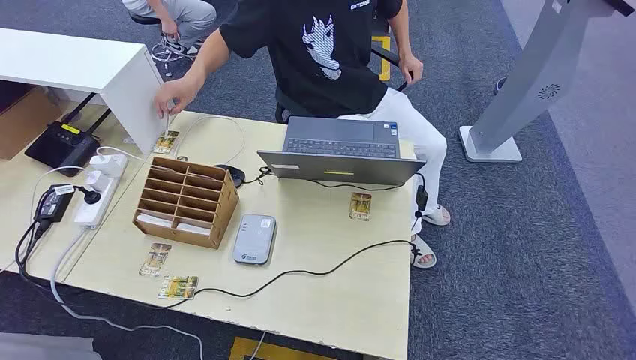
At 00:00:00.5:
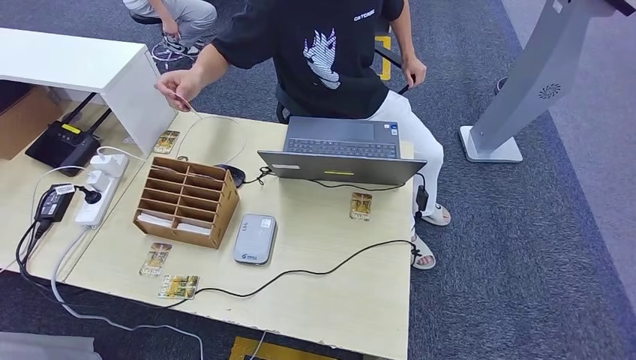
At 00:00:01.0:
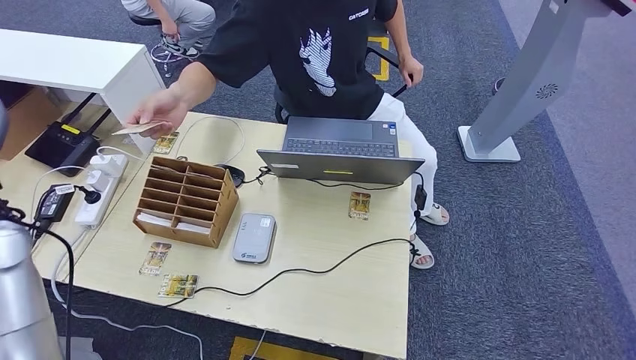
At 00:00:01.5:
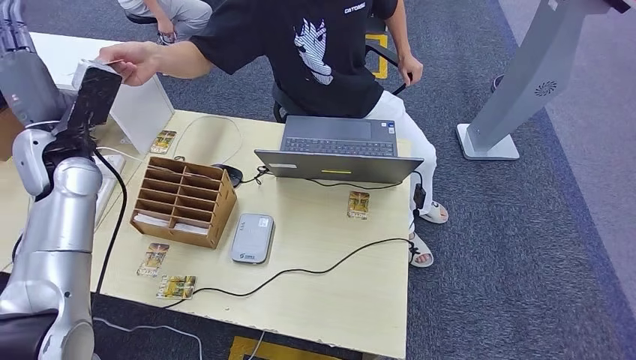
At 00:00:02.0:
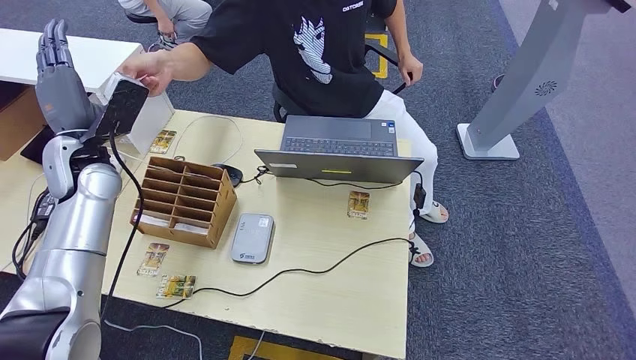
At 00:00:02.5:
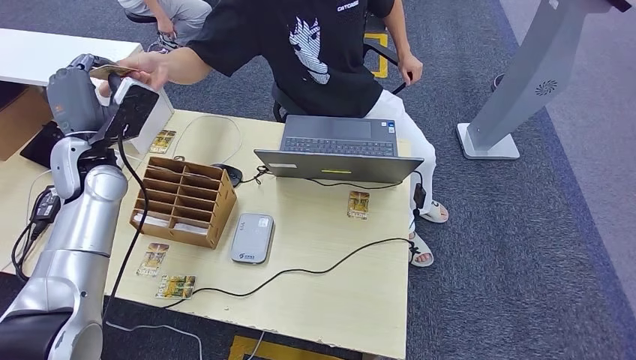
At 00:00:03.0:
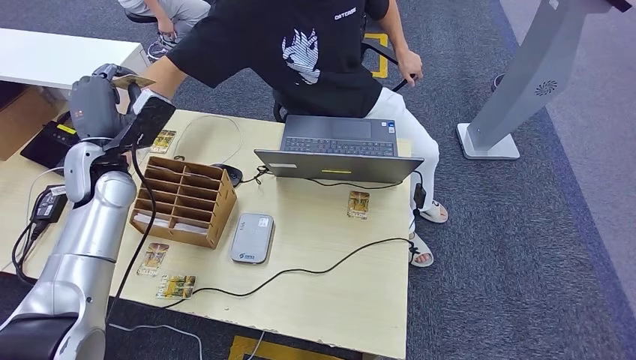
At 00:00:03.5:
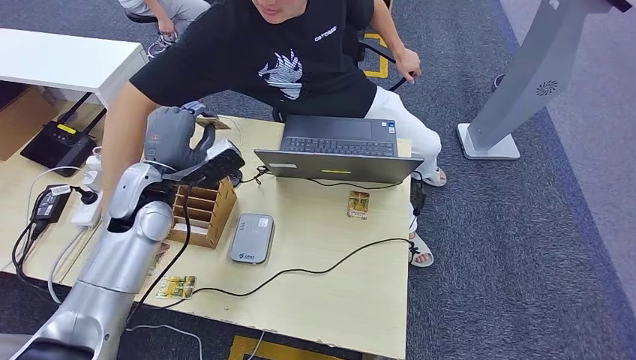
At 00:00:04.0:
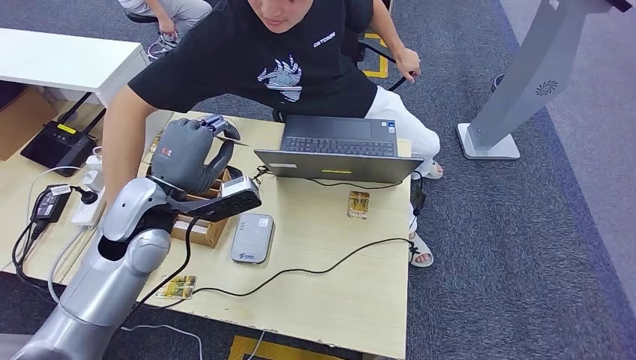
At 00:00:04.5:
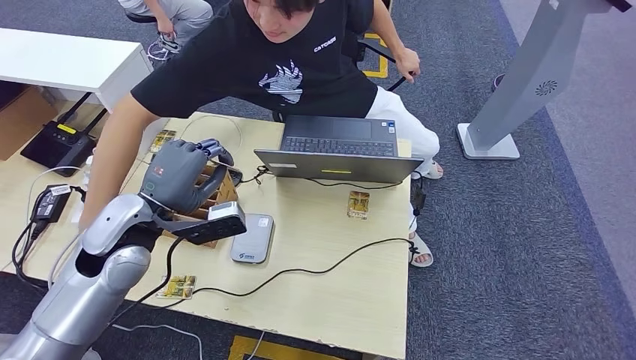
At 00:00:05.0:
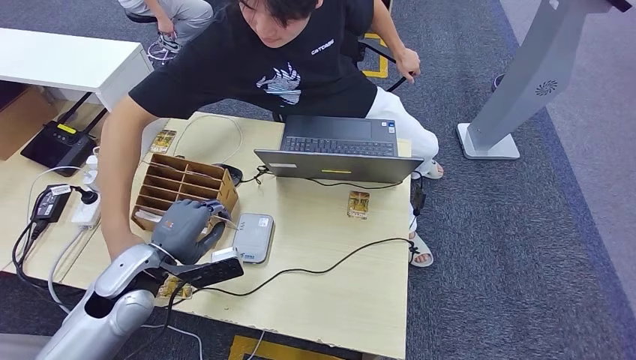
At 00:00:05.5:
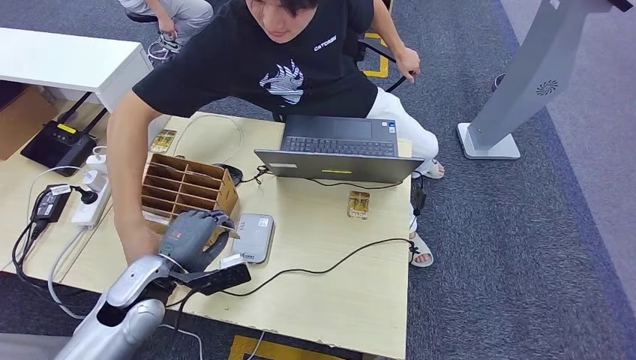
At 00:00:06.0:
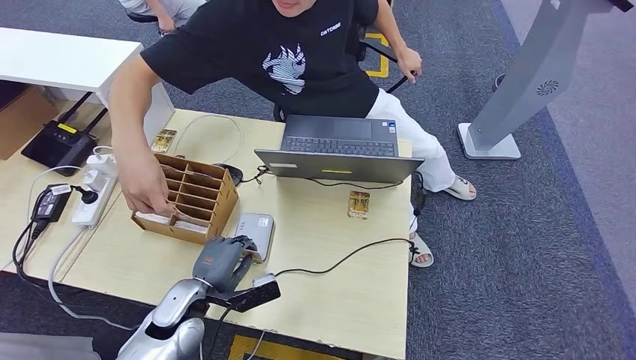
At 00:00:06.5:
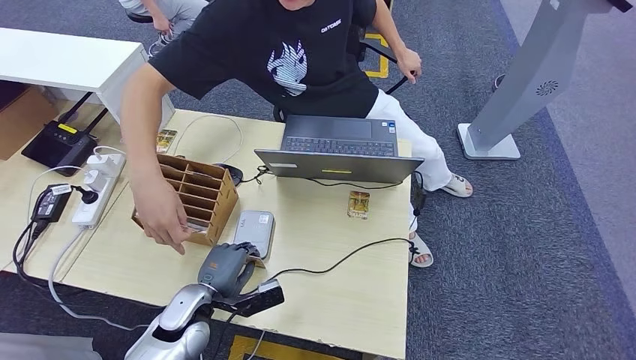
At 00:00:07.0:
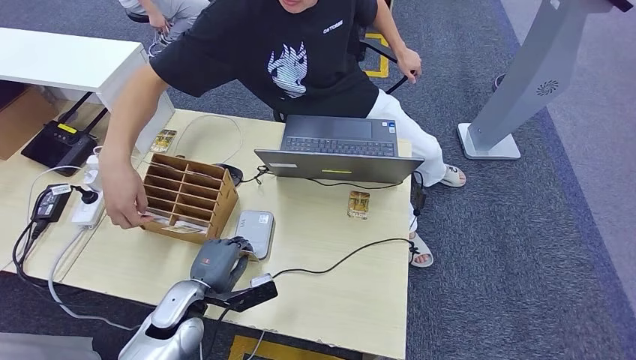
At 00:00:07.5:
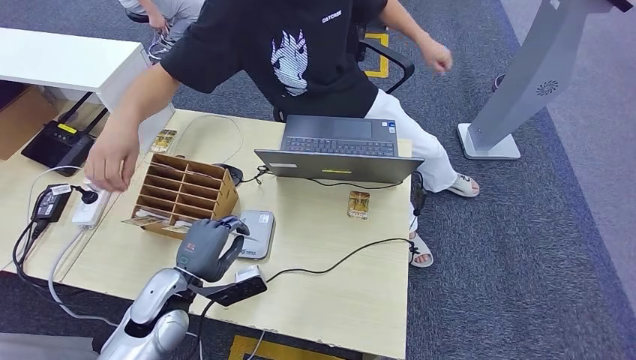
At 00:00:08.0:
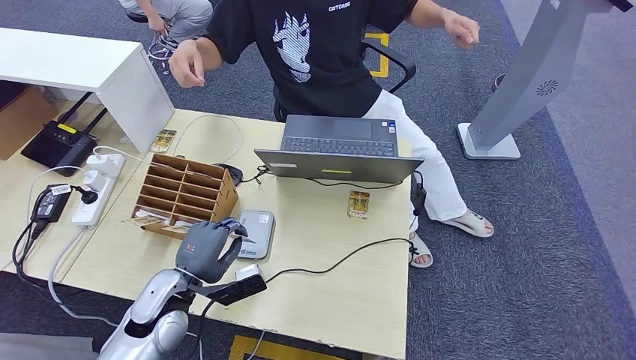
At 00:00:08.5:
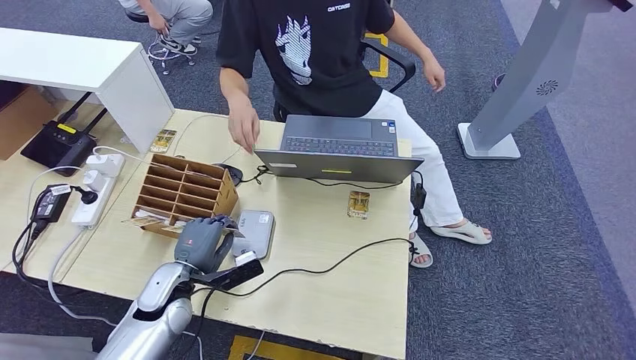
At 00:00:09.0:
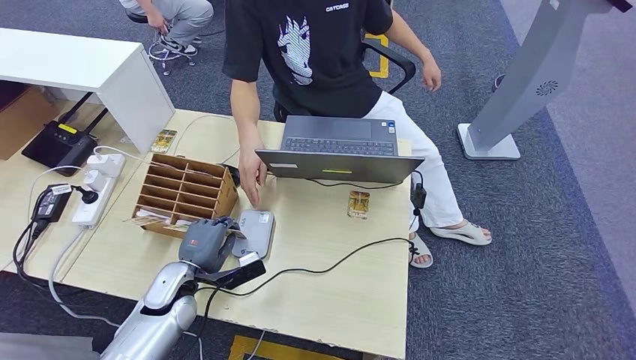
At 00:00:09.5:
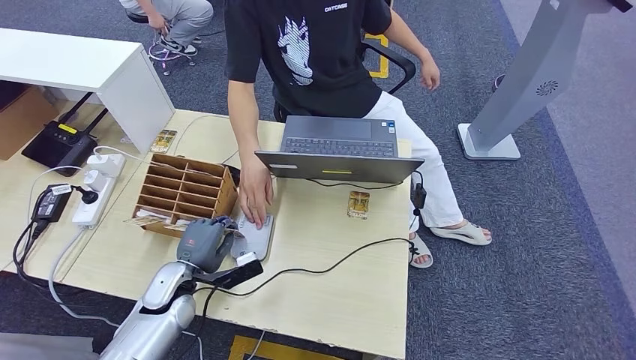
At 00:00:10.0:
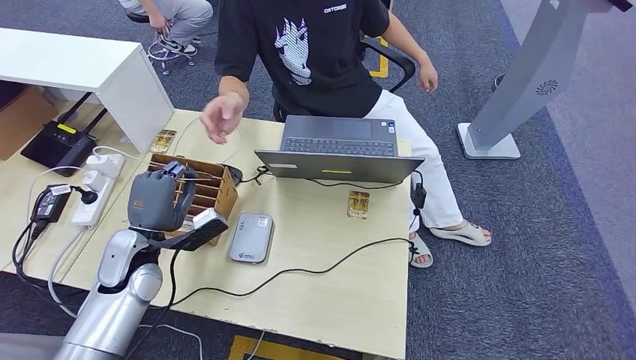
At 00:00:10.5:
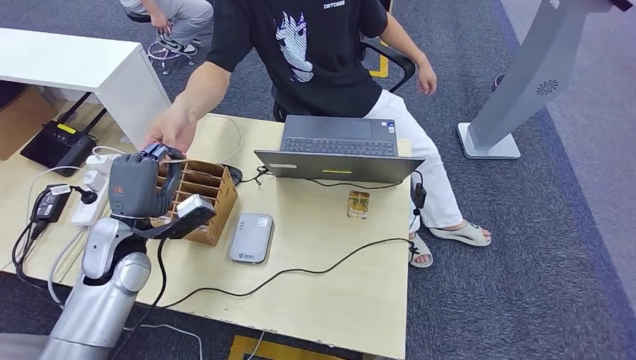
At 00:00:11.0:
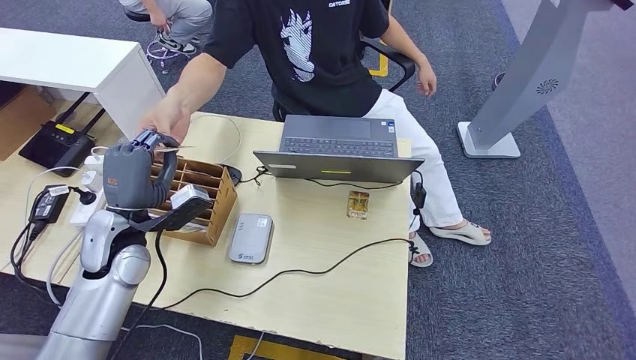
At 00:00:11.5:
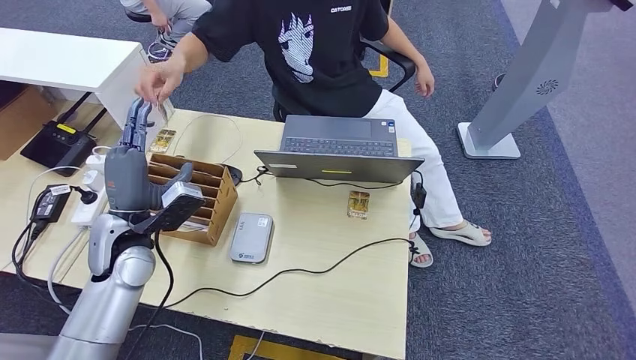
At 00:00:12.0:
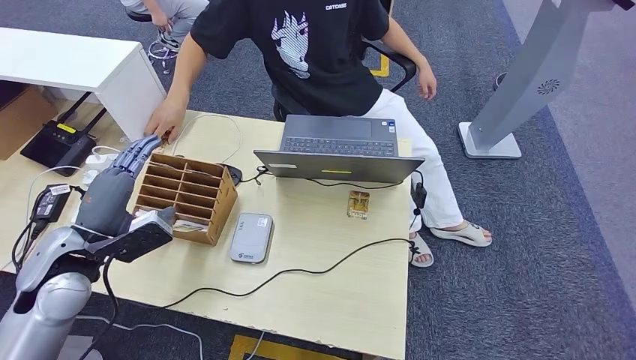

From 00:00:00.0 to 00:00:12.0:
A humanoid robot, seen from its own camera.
Step, from 00:00:00.0 to 00:00:03.0: Take the ID card from the person's hand.
Step, from 00:00:04.0 to 00:00:09.0: Place the ID card on the card reader.
Step, from 00:00:09.5 to 00:00:11.0: Hand the ID card to the person.
From 00:00:04.0 to 00:00:06.0: The left hand shifts roughly 20 cm downward and backward.
From 00:00:06.0 to 00:00:08.0: The hands stay close to where they were, moving slightly.
From 00:00:08.0 to 00:00:10.0: The left hand travels forward and to the left by roughly 10 cm.
From 00:00:10.0 to 00:00:12.0: The left hand heads upward and to the left, covering approximately 10 cm.

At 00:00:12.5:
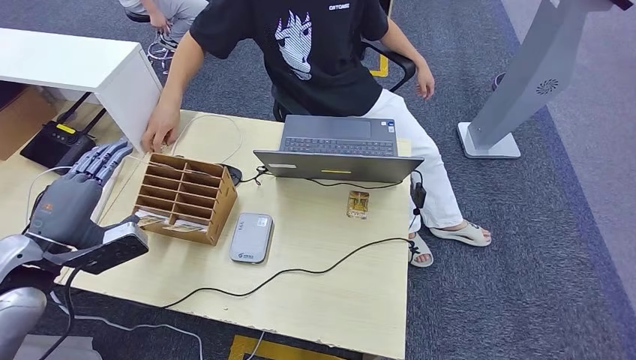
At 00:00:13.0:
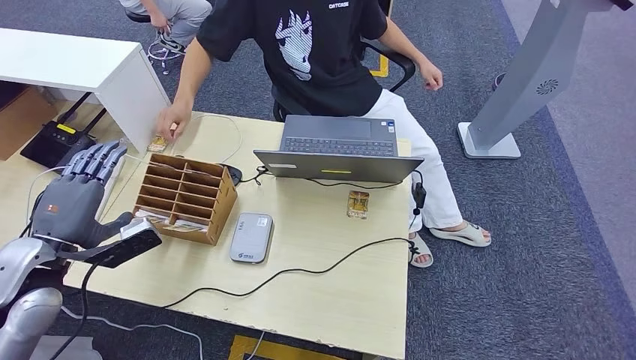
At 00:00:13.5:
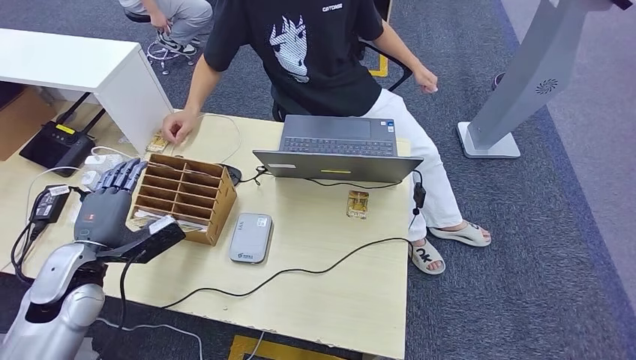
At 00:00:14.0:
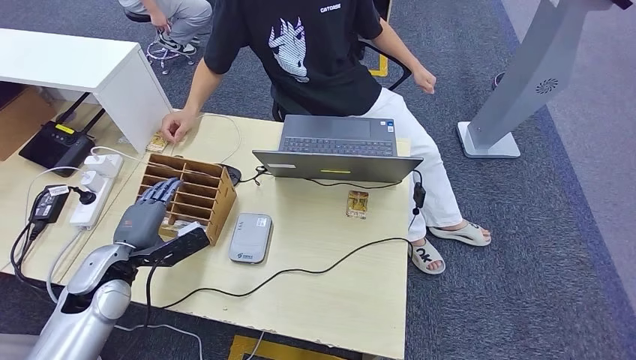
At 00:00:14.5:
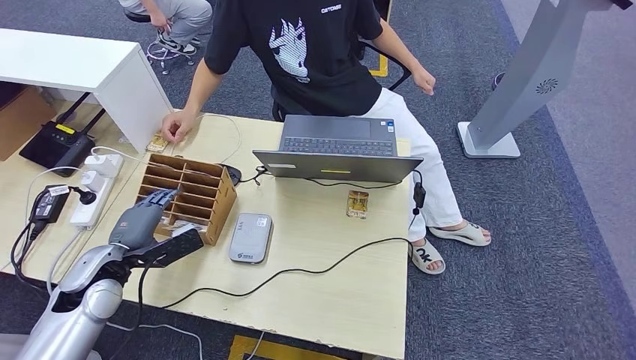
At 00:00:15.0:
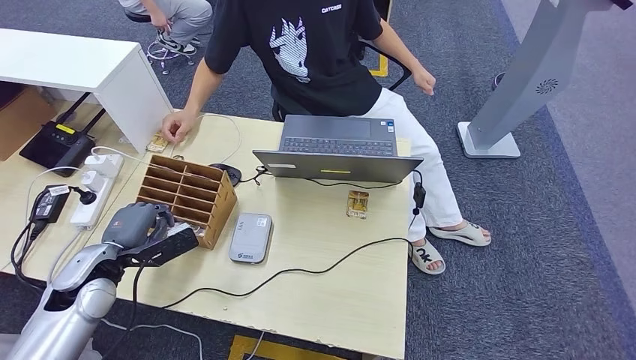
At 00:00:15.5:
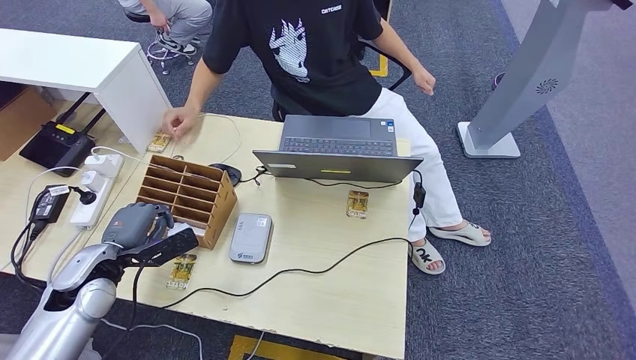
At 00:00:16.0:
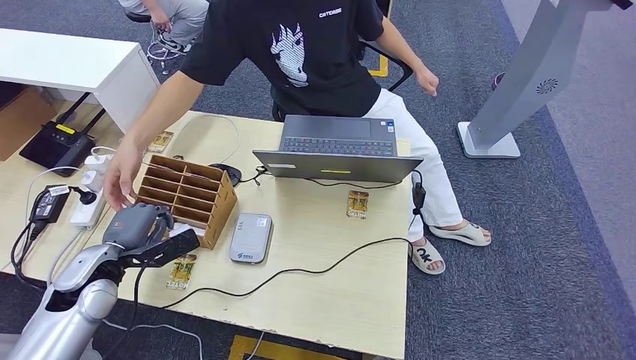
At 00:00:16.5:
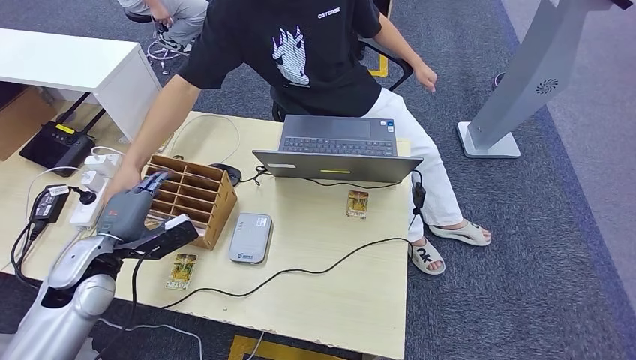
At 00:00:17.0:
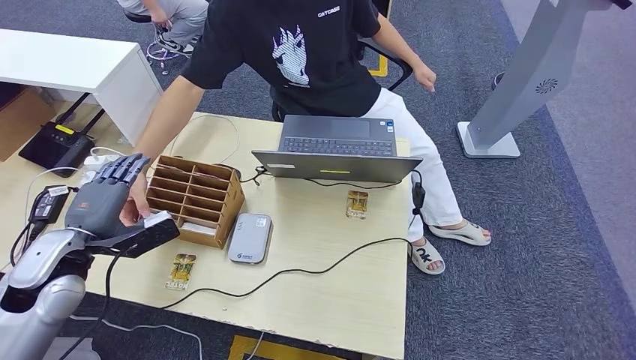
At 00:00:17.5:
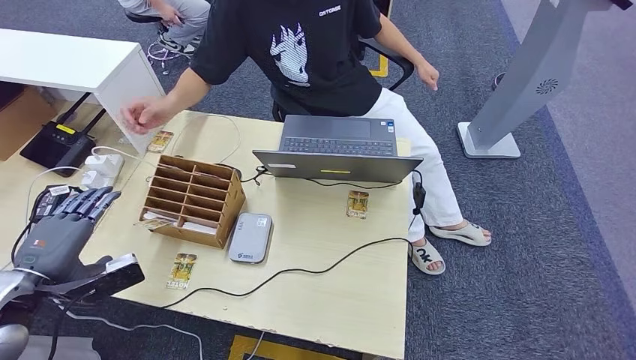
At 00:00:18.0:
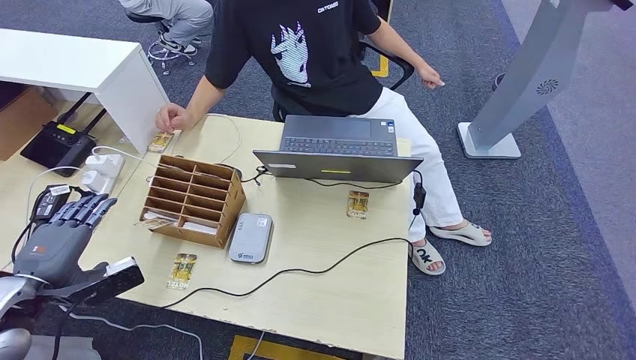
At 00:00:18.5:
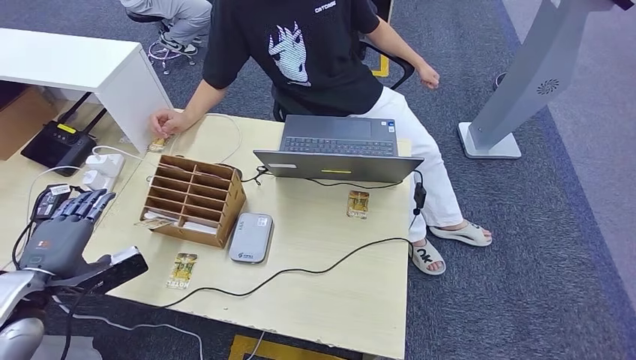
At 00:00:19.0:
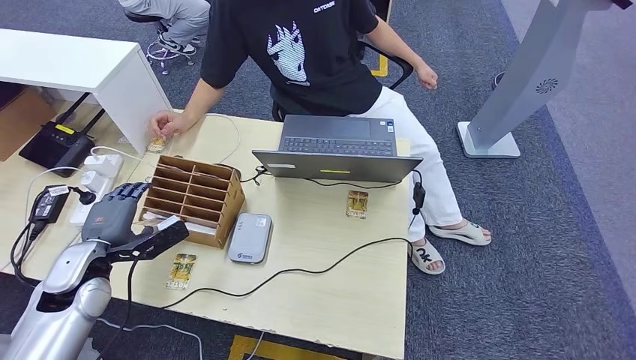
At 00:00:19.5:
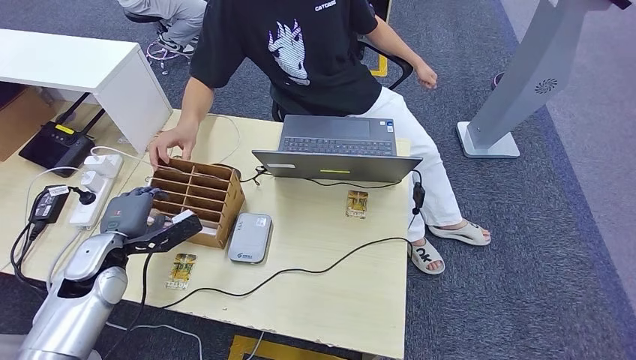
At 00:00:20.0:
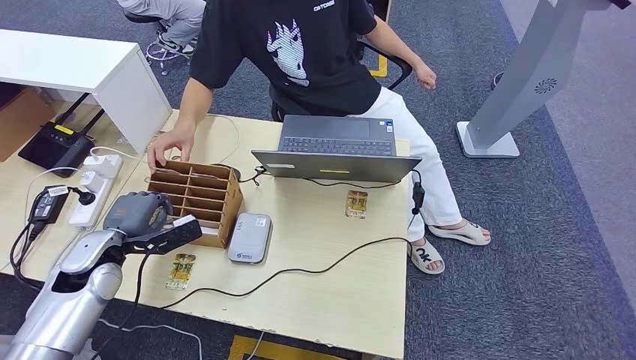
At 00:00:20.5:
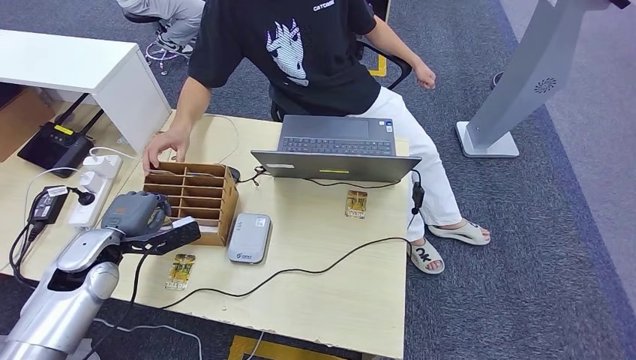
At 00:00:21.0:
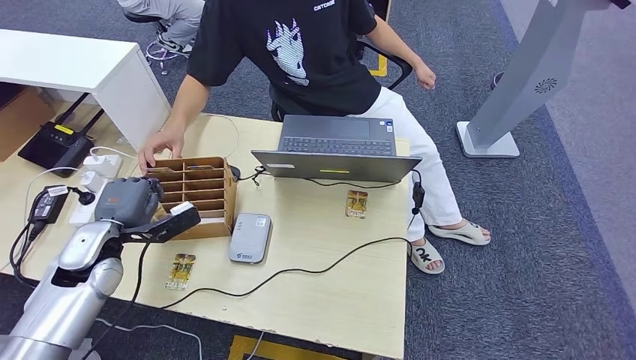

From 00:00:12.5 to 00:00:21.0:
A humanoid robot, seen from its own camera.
From 00:00:12.5 to 00:00:14.5: The left hand shifts about 10 cm downward.
From 00:00:14.5 to 00:00:16.5: The hands make only small movements.
From 00:00:16.5 to 00:00:19.0: The left hand goes backward and returns, some 10 cm each way.
From 00:00:19.0 to 00:00:21.0: There are only small adjustments of the hands.
